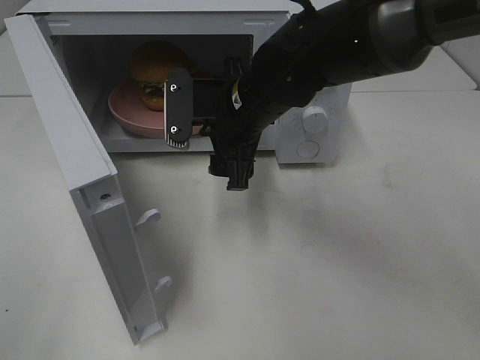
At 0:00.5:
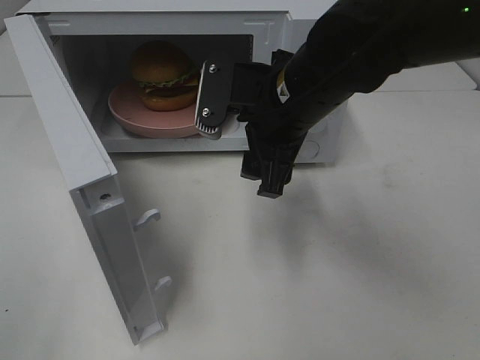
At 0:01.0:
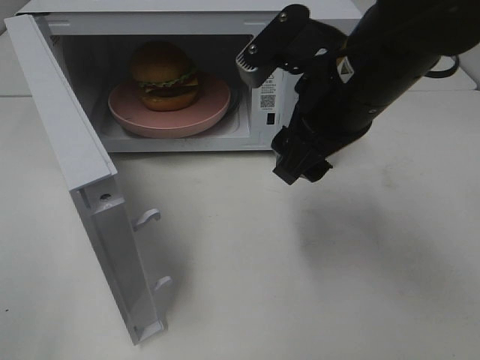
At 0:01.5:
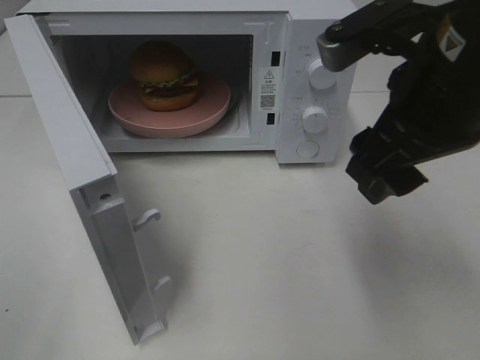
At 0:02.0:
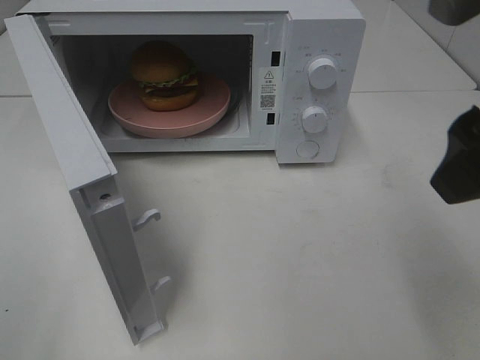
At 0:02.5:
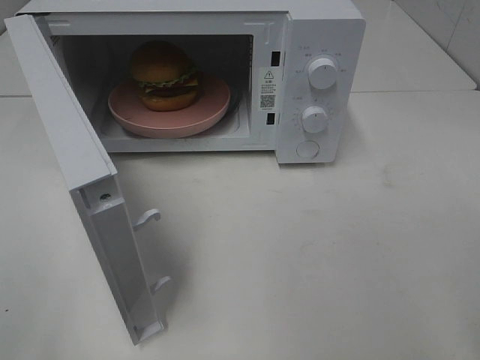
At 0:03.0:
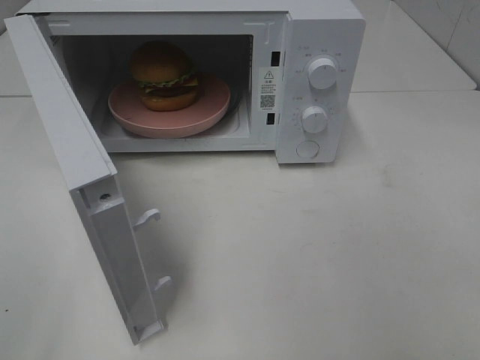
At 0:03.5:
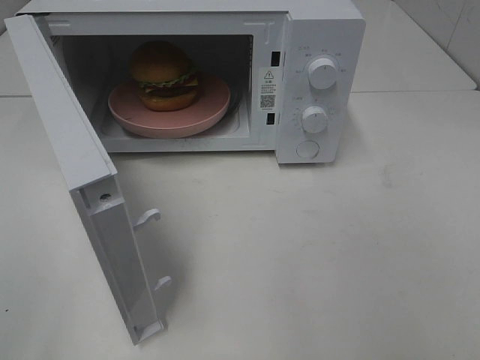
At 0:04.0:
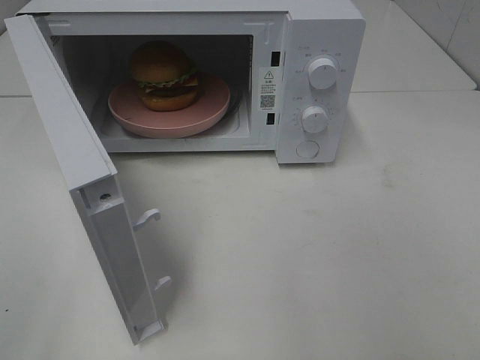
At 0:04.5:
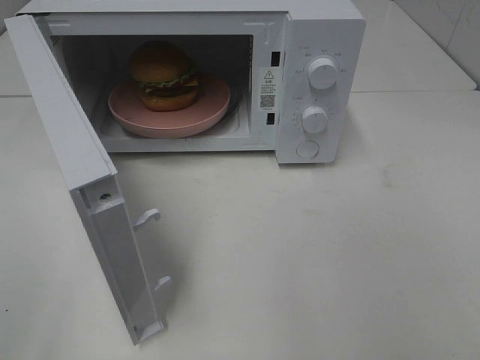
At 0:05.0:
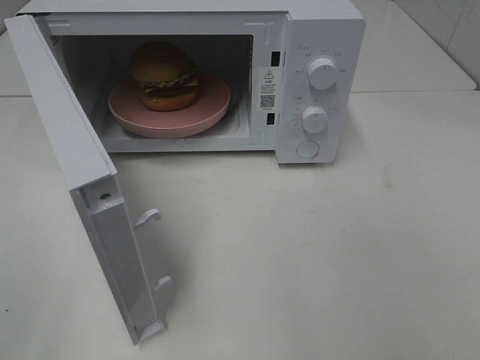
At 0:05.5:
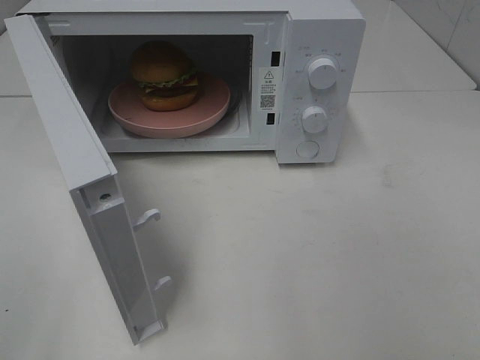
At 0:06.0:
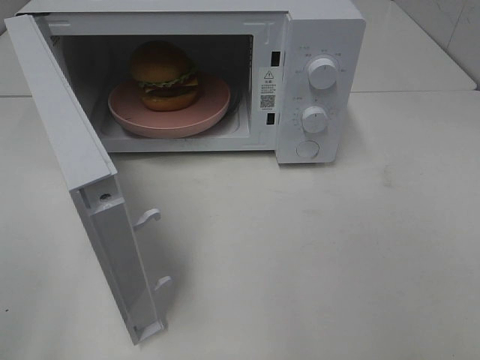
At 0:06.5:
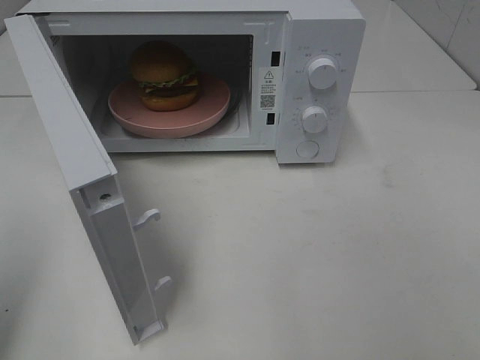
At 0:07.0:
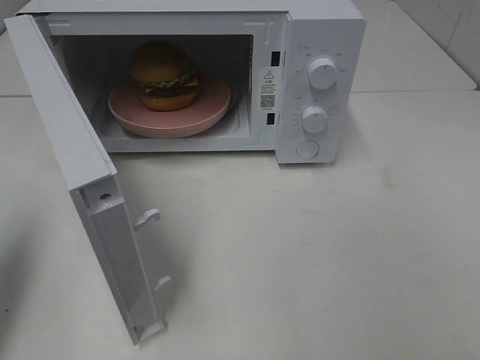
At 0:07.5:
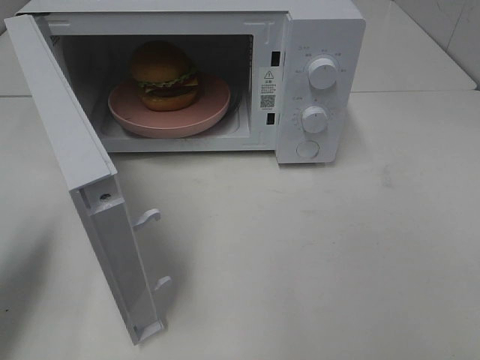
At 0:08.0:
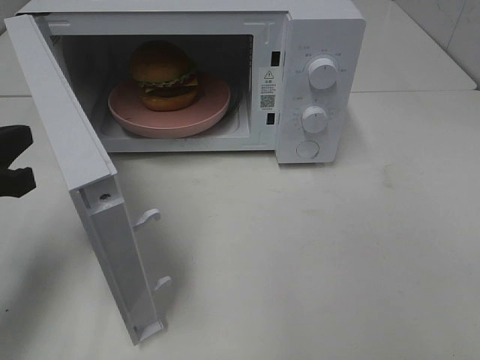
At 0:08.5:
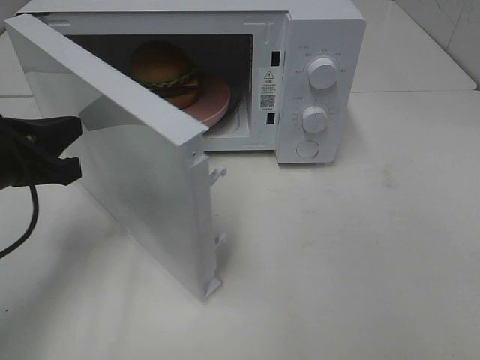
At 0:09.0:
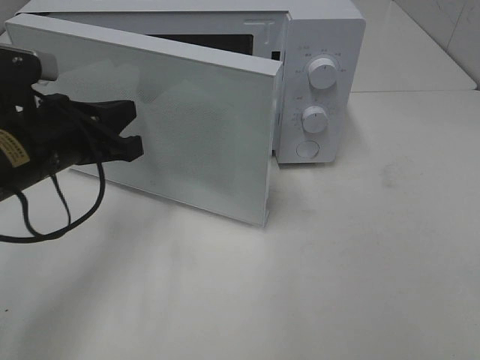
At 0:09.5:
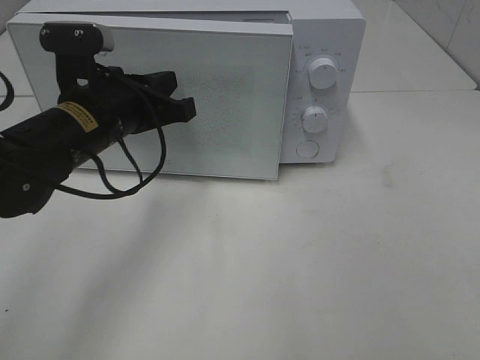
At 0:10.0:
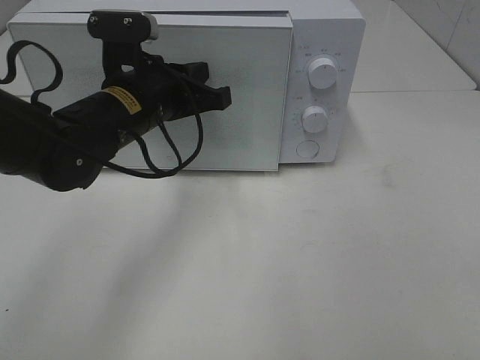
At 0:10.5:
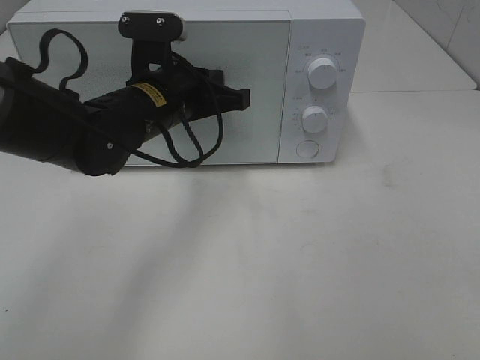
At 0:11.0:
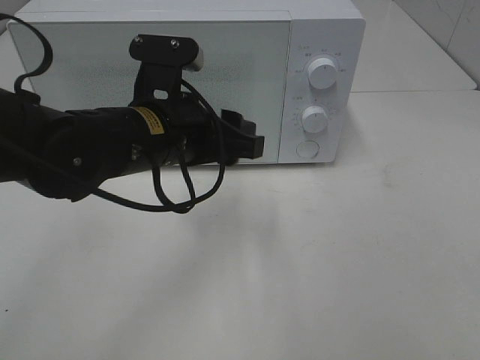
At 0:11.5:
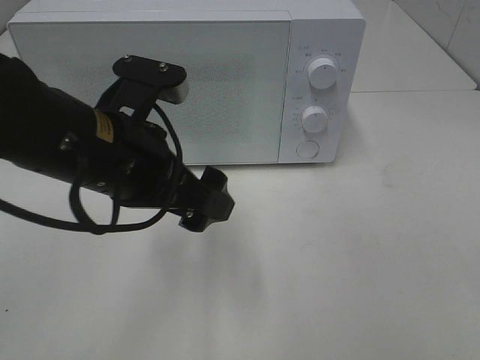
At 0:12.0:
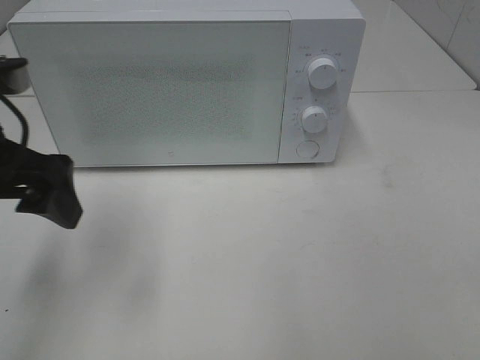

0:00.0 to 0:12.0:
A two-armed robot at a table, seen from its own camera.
Task of the whole recording: Heat the burger.
Step, 0:00.0 to 0:11.0: Left hand: close the microwave door.
0:00.0 to 0:02.0: The right gripper heads backward, to the right and upward, covering some 30 cm.
0:02.0 to 0:04.0: The right gripper travels backward and to the right by approximately 20 cm.
0:06.0 to 0:08.0: The left gripper shifts roughly 20 cm forward and downward, and closes.
0:08.0 to 0:10.0: The left gripper heads to the right and forward, covering some 20 cm.
0:10.0 to 0:12.0: The left gripper shifts roughly 20 cm to the left, backward and upward, and opens up.

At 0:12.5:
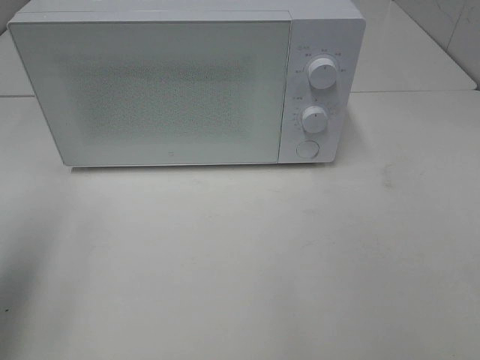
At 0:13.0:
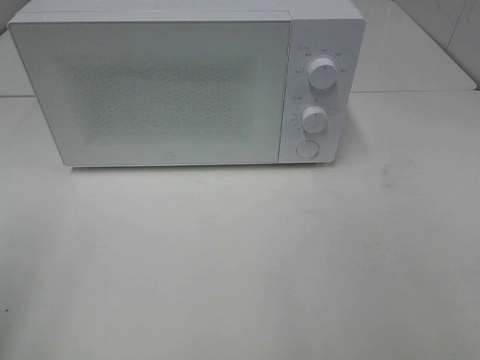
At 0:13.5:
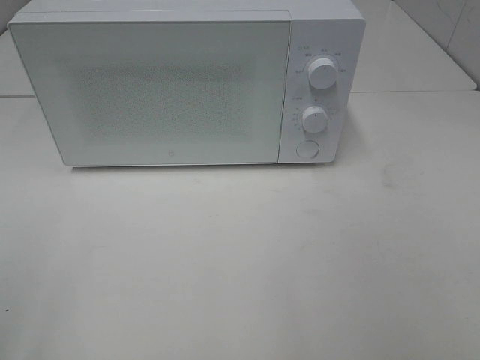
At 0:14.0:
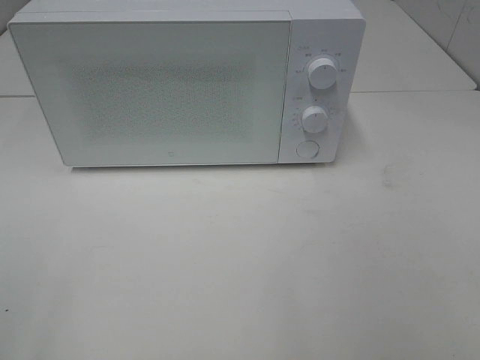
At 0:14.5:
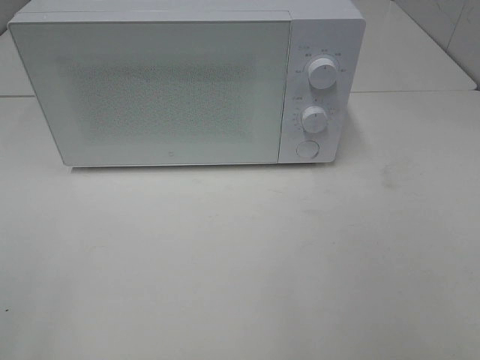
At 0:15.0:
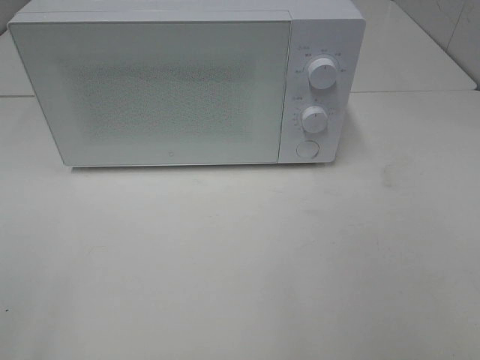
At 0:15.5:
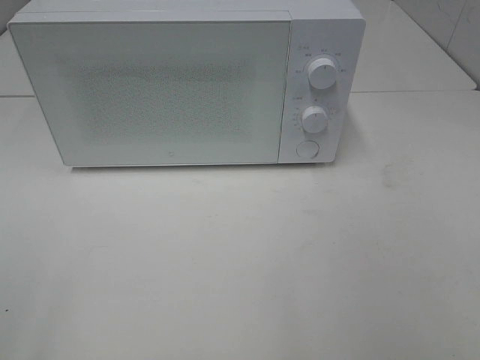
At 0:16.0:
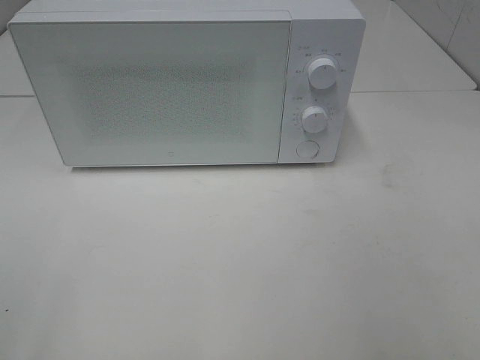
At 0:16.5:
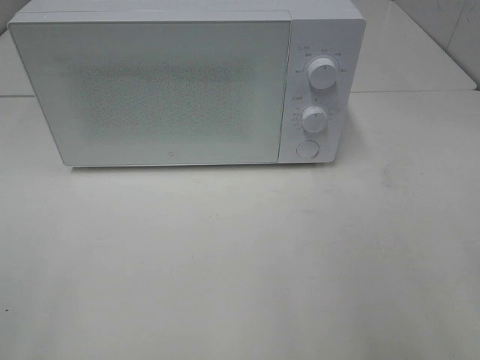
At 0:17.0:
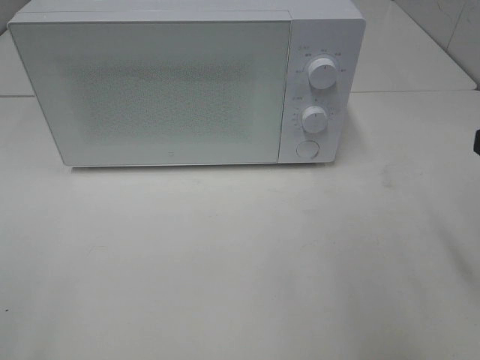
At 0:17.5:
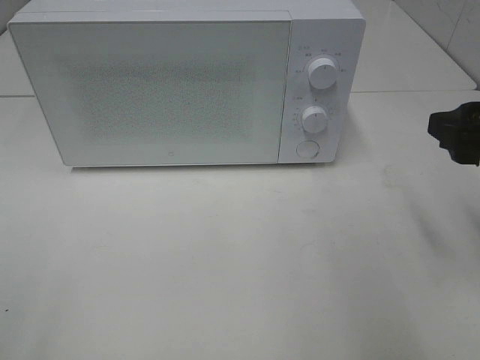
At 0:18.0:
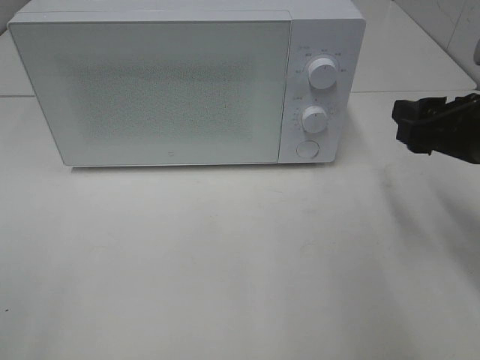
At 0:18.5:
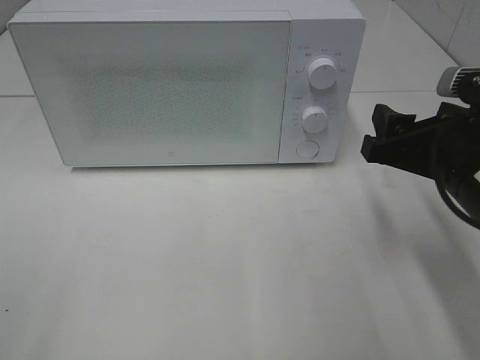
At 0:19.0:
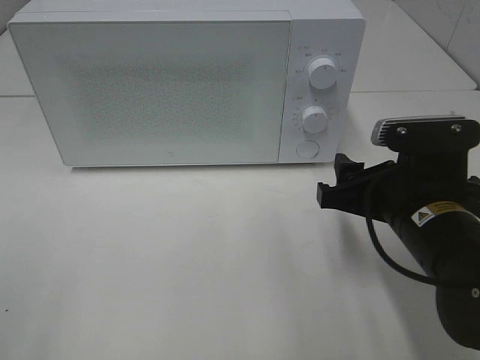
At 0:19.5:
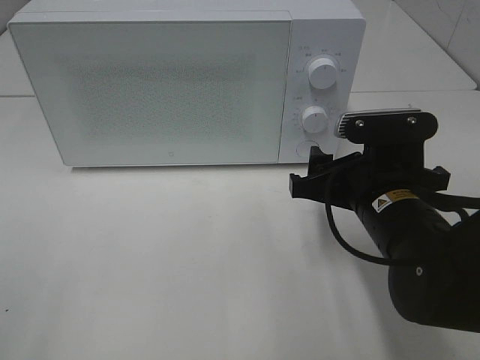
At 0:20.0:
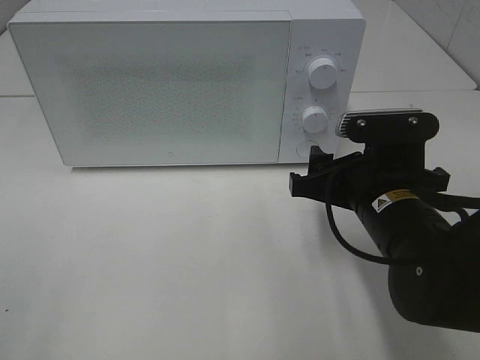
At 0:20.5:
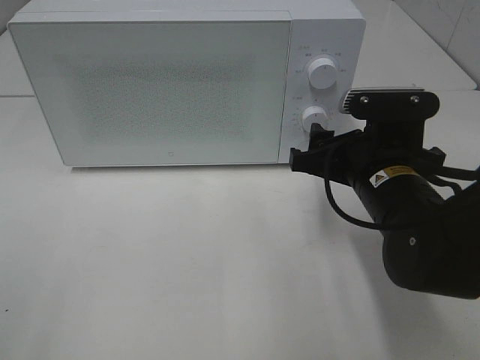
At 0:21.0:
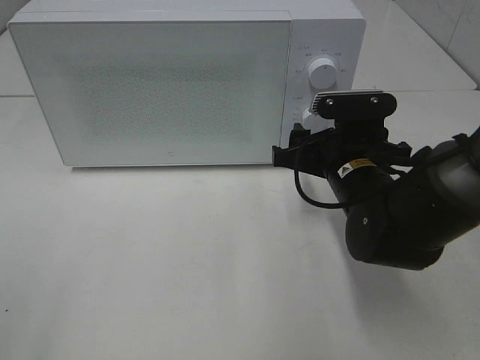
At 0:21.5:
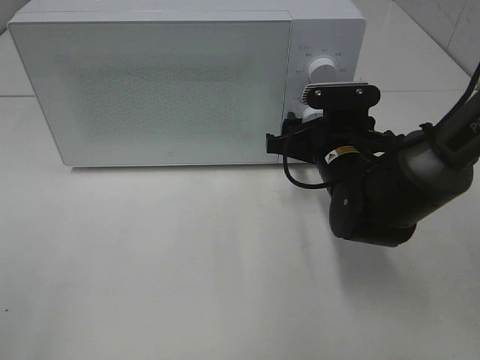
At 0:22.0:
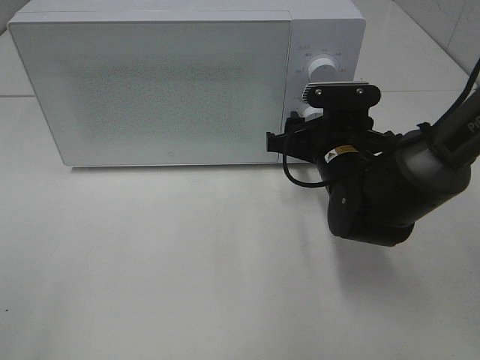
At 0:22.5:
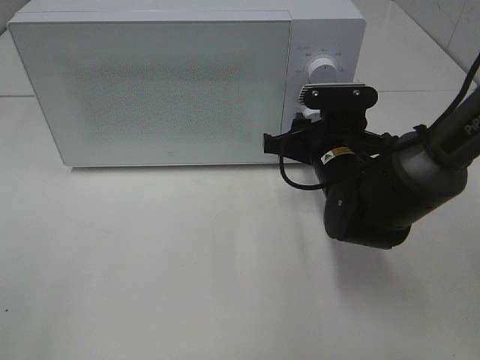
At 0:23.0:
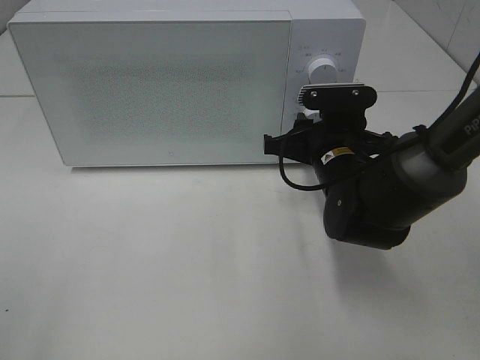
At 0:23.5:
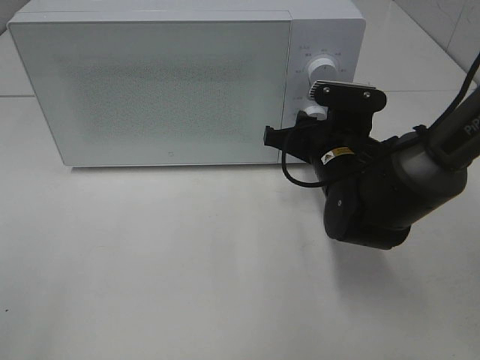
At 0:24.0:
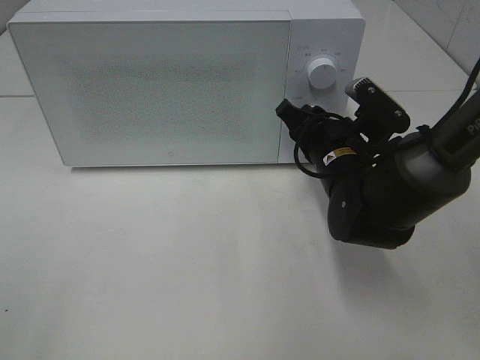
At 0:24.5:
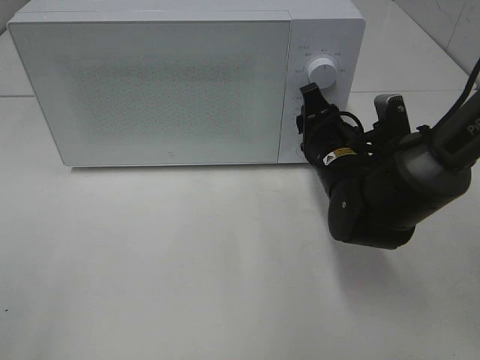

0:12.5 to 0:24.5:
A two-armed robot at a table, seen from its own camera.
Task of the whole recording: Heat the burger.
0:12.5 to 0:14.5: The left gripper heads backward, covering roughly 15 cm.
0:16.5 to 0:18.5: The right gripper goes approximately 15 cm forward, downward and to the left.
0:18.5 to 0:20.5: The right gripper travels to the left by about 5 cm.
0:20.5 to 0:22.5: The right gripper goes approximately 5 cm forward.

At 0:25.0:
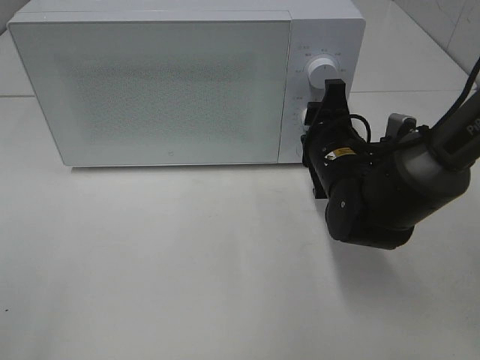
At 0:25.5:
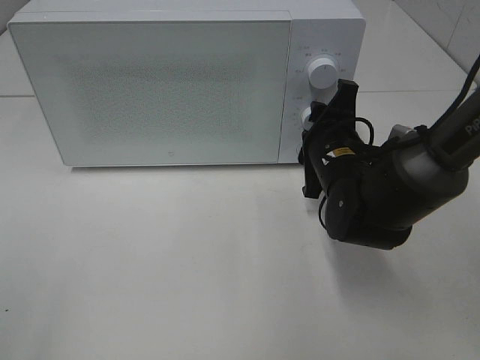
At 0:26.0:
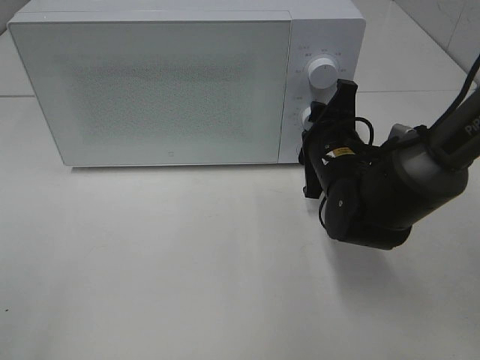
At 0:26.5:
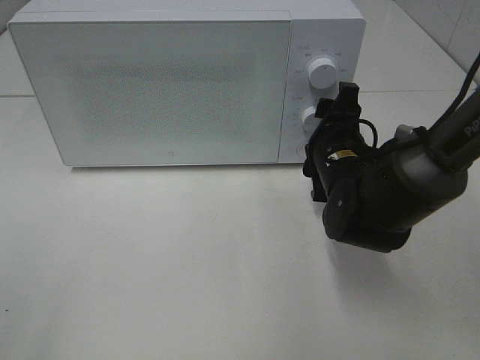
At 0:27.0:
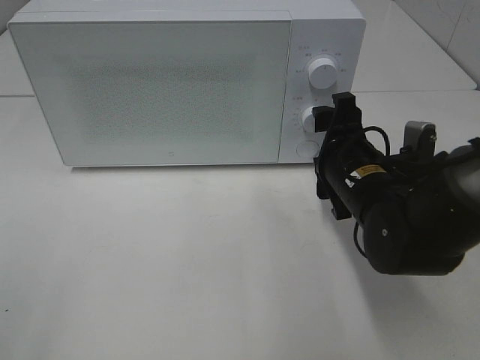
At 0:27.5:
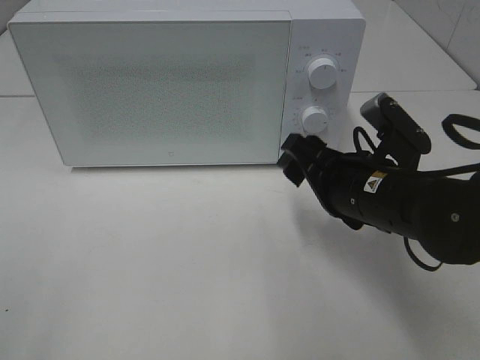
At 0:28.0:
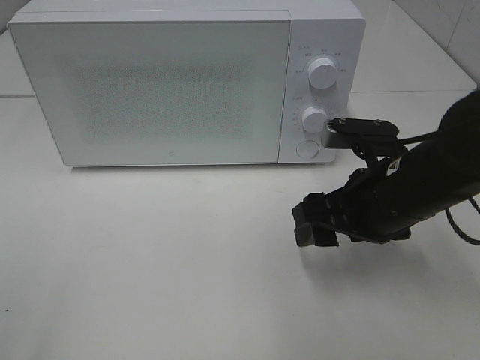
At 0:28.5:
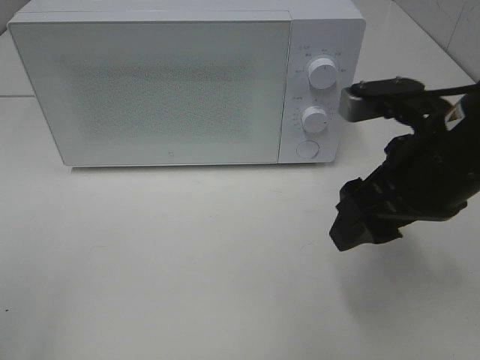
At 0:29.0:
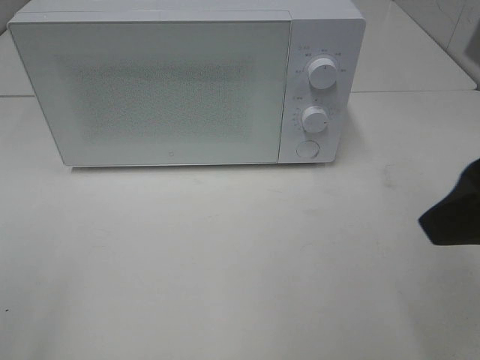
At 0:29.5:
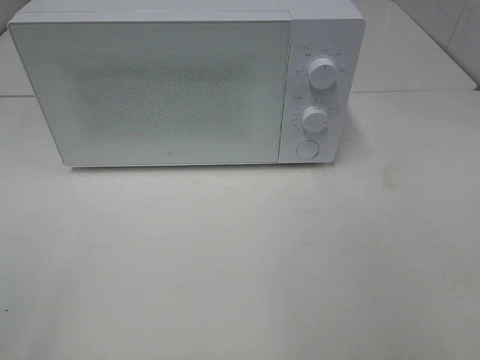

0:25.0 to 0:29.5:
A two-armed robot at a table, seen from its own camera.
Task of the whole recording: Heat the burger.
0:25.0 to 0:27.0: The grippers make only small movements.
0:27.0 to 0:29.5: The right gripper travels backward, upward and to the right by about 35 cm.
